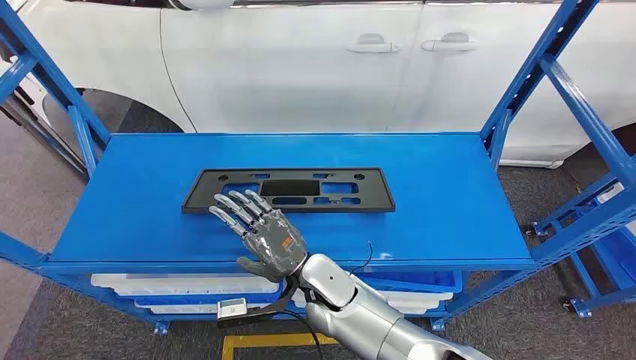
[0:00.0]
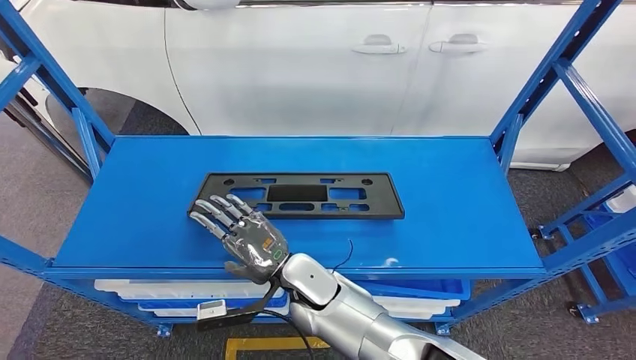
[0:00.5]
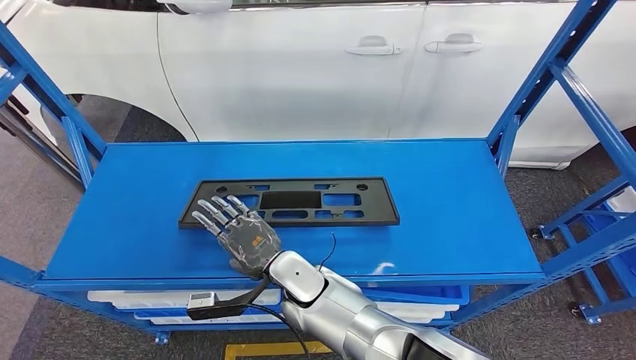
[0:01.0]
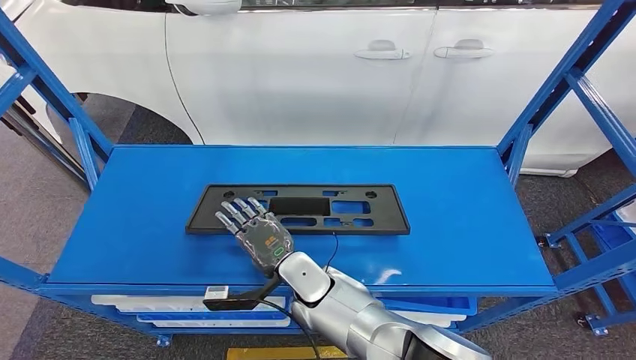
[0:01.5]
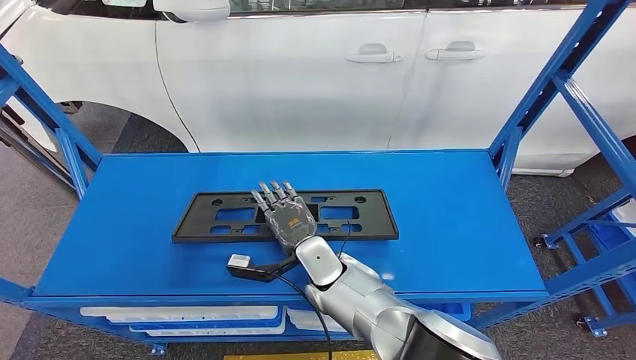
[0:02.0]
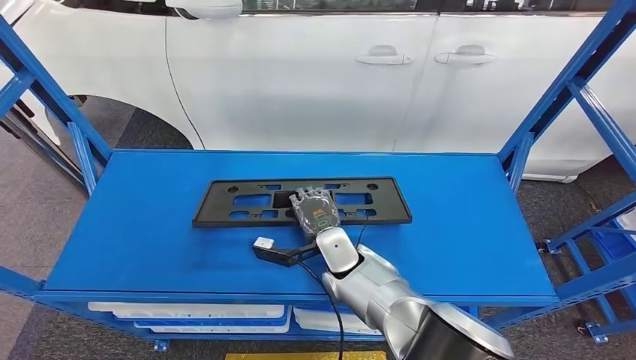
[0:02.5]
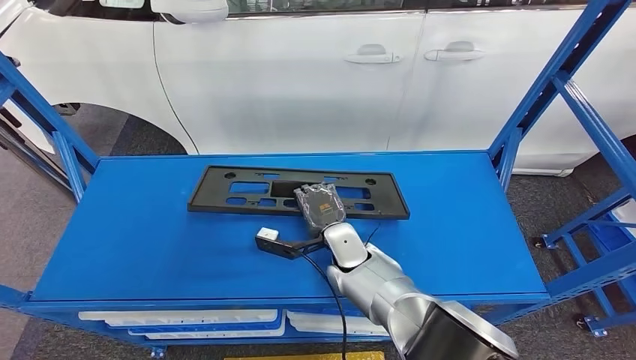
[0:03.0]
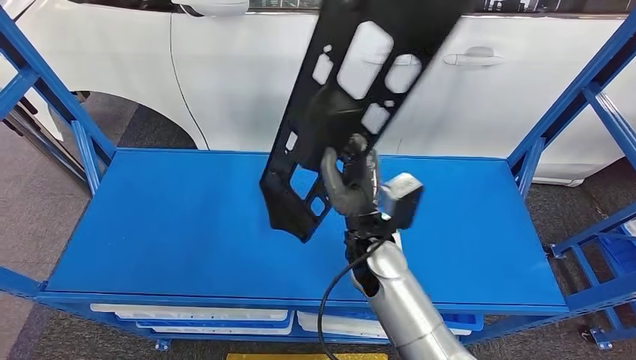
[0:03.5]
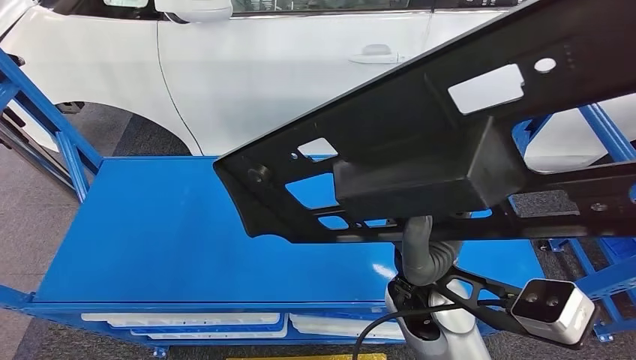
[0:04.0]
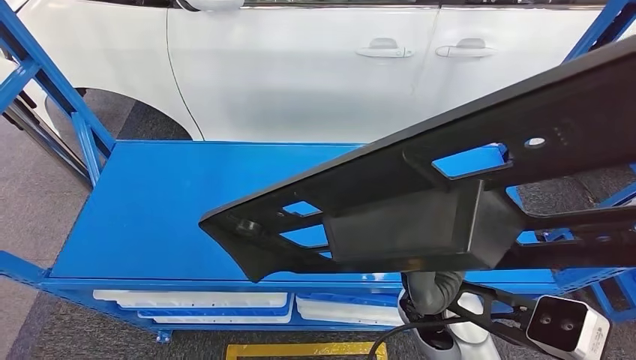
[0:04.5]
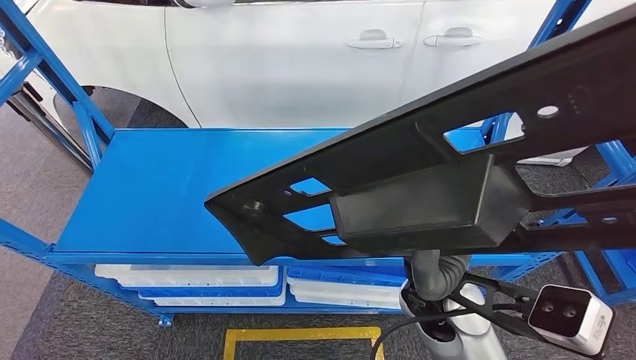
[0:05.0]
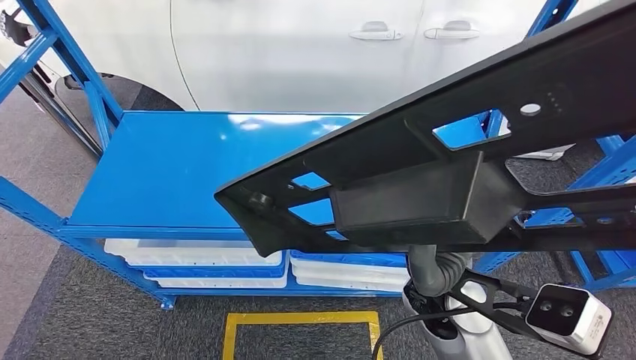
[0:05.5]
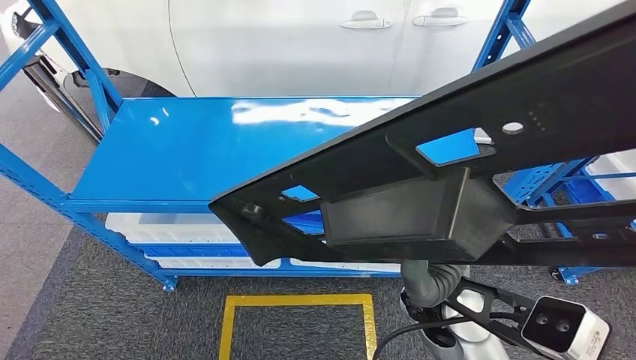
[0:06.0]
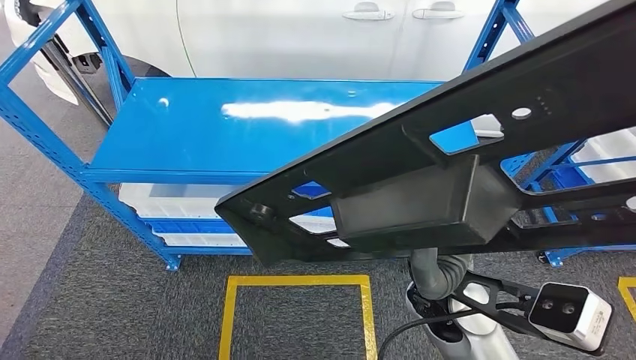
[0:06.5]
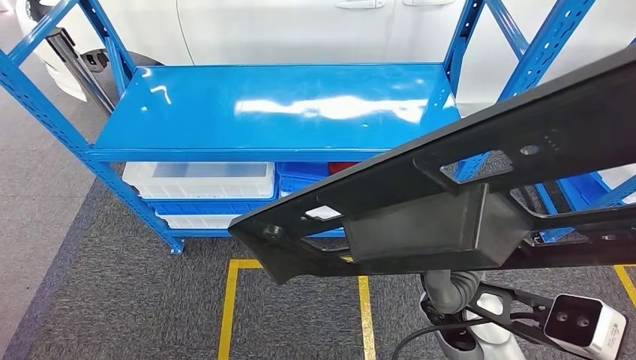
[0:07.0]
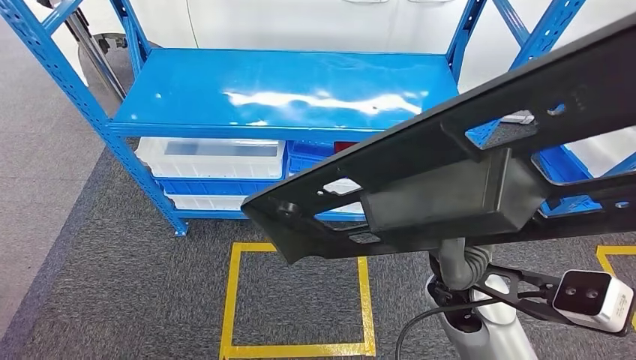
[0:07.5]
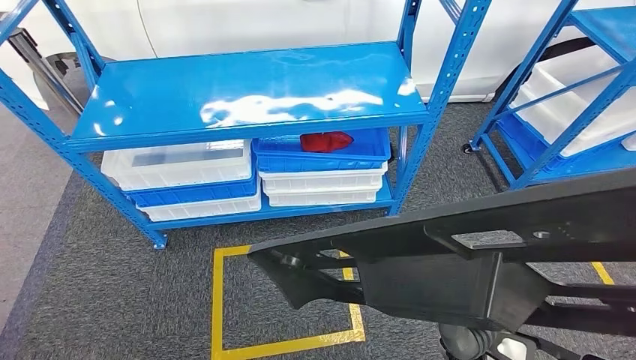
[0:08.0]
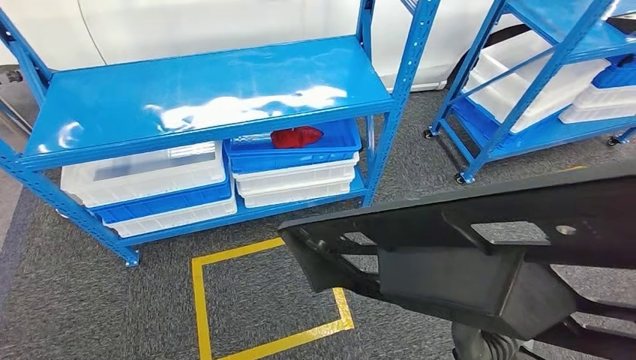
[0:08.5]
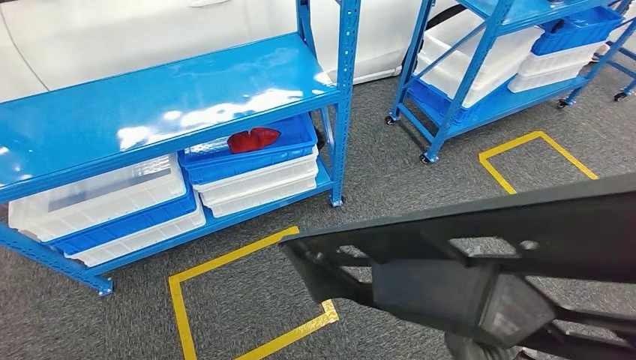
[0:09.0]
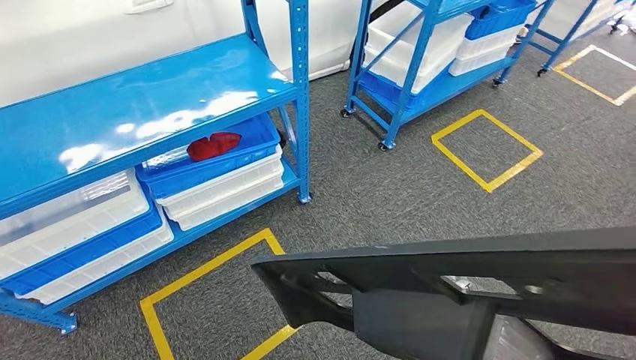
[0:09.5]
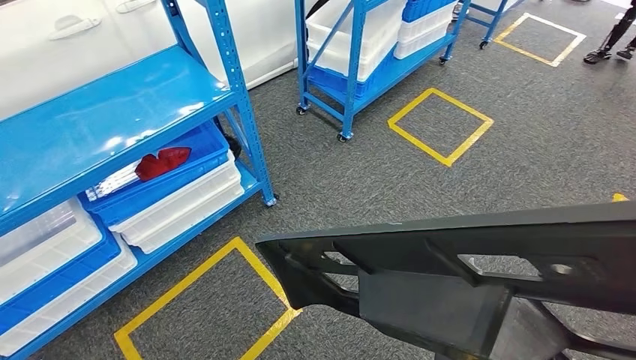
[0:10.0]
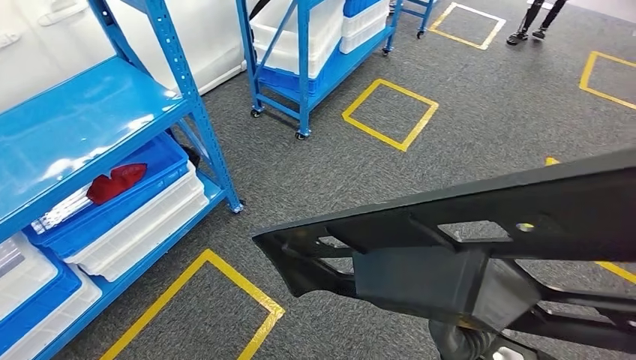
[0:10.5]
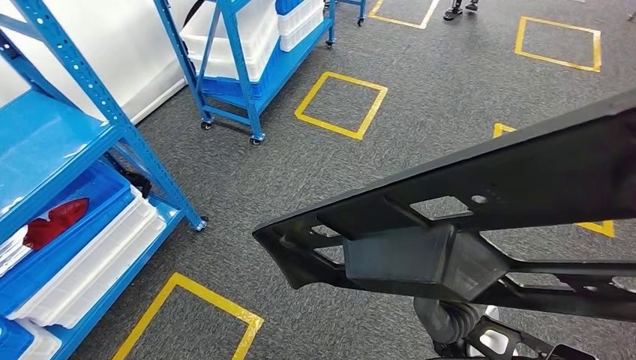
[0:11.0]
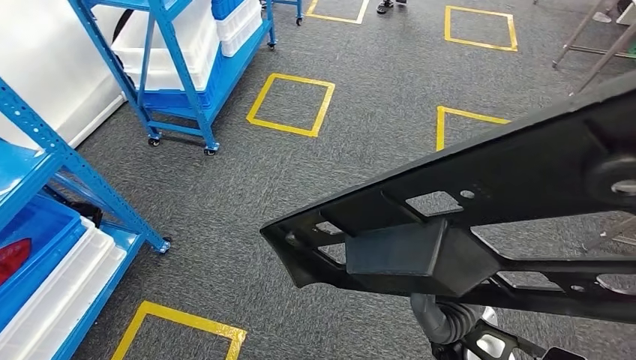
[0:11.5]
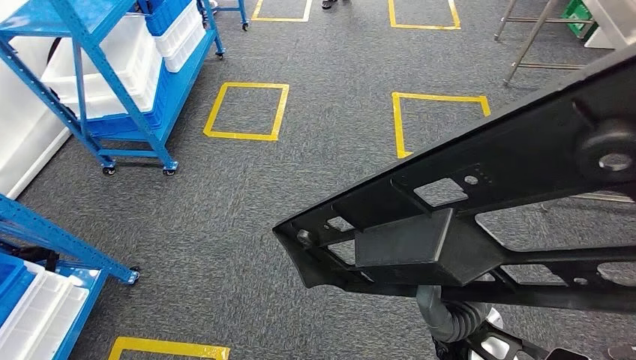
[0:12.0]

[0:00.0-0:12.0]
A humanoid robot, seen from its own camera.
Step, 0:00.0 to 0:04.0: Pick up the large material from the shelf.

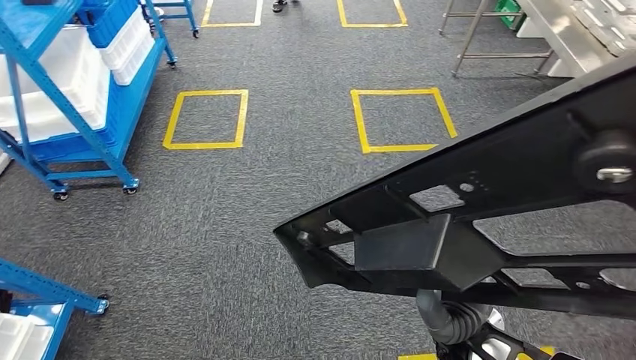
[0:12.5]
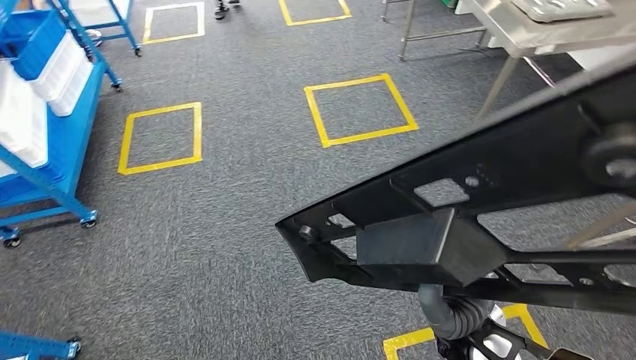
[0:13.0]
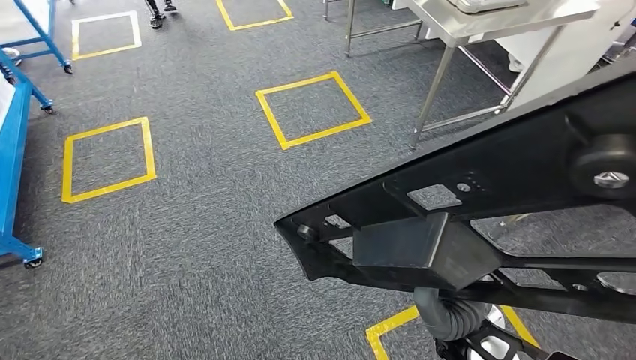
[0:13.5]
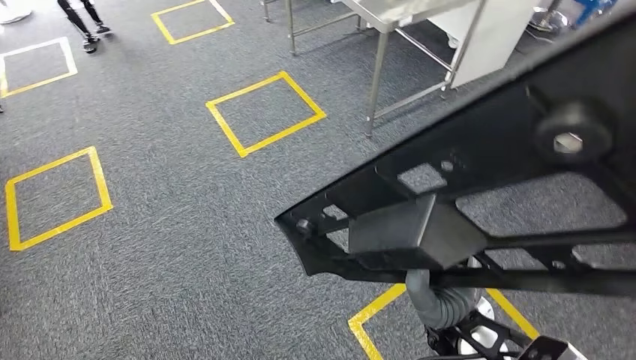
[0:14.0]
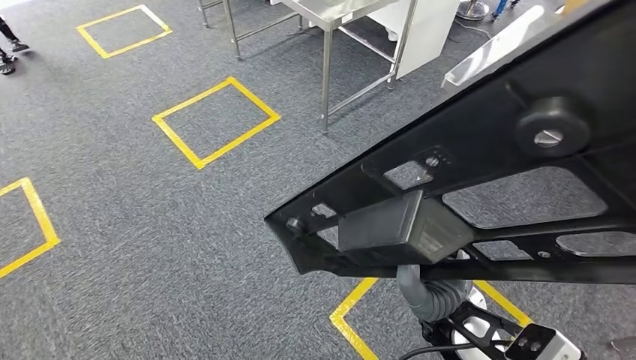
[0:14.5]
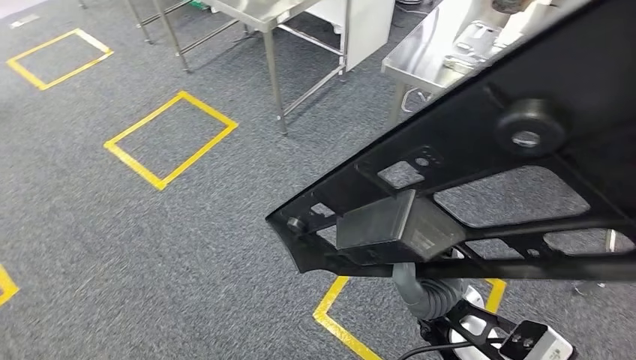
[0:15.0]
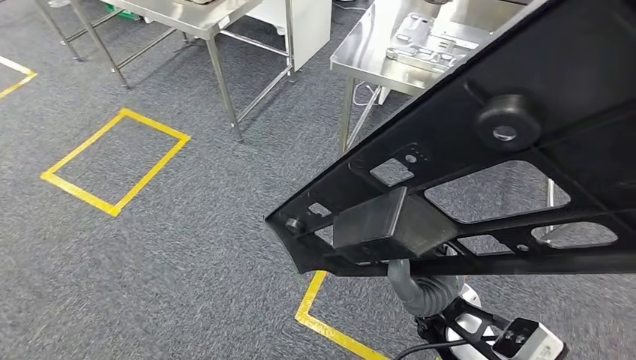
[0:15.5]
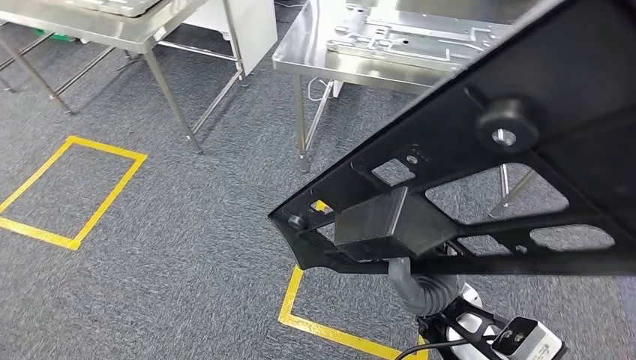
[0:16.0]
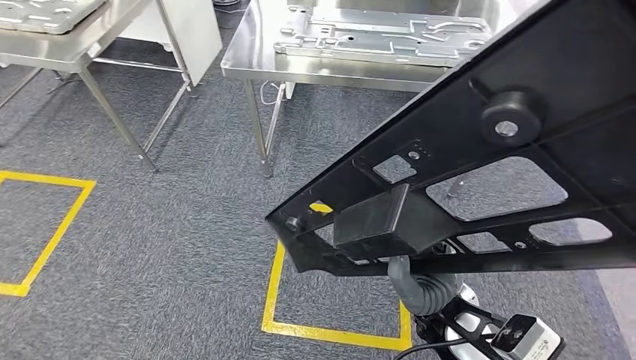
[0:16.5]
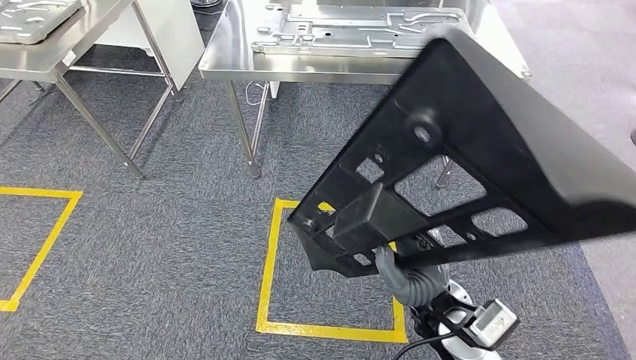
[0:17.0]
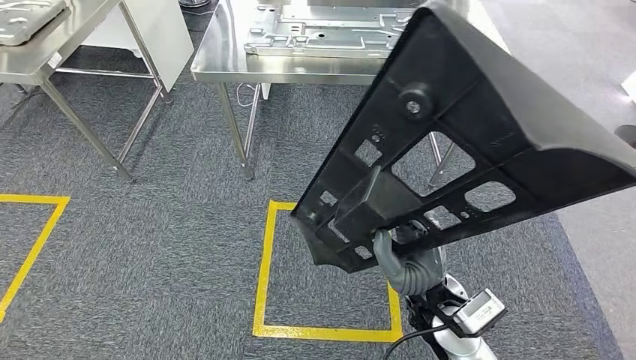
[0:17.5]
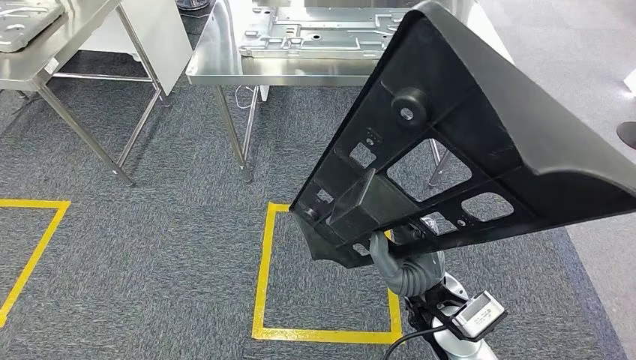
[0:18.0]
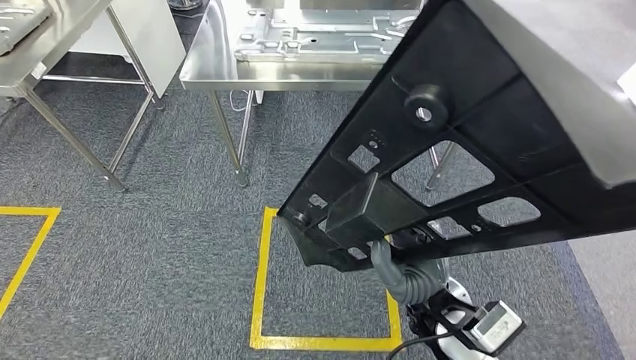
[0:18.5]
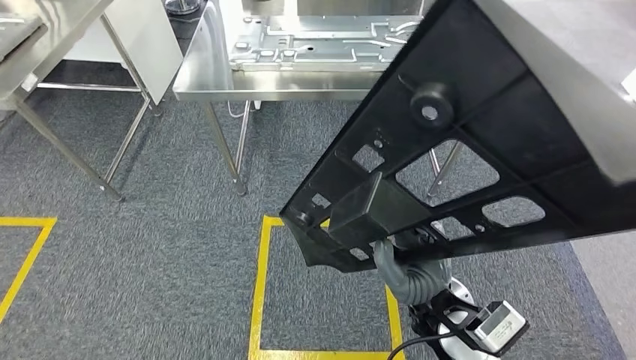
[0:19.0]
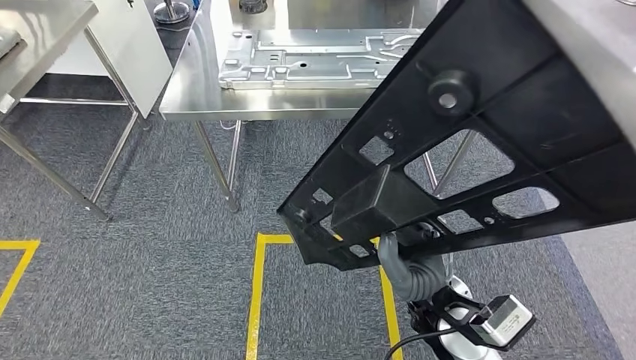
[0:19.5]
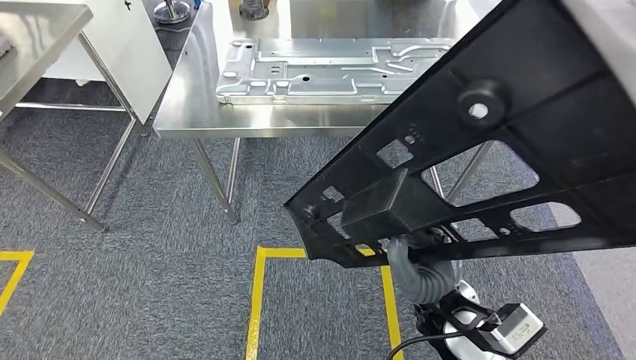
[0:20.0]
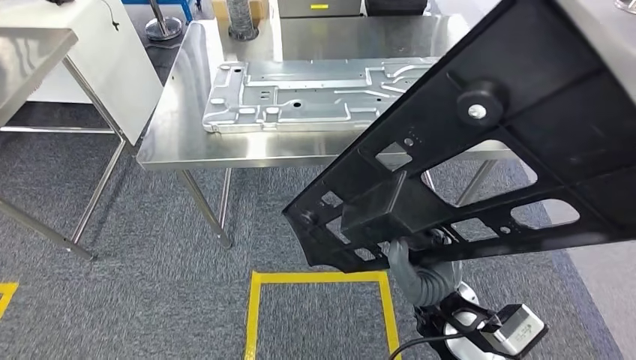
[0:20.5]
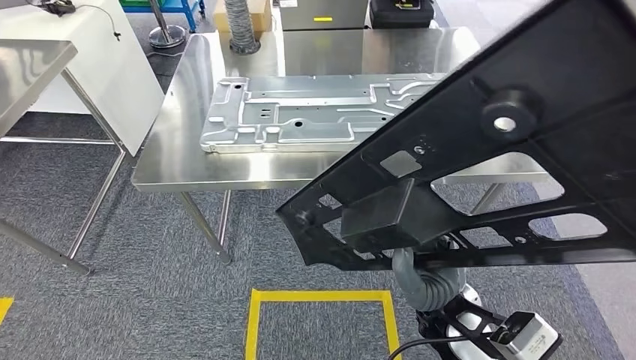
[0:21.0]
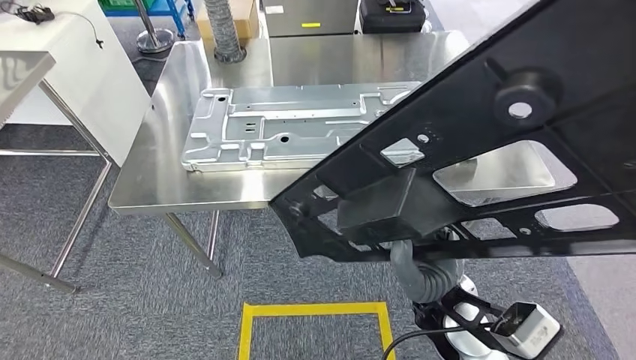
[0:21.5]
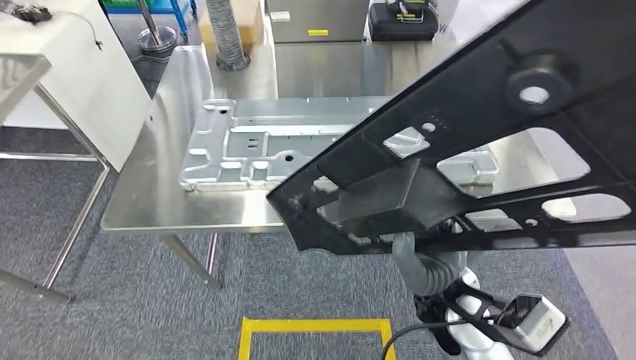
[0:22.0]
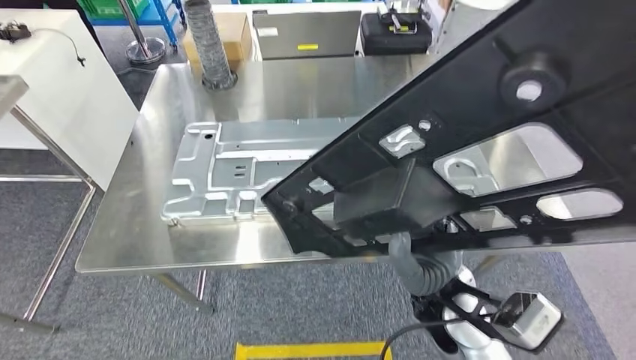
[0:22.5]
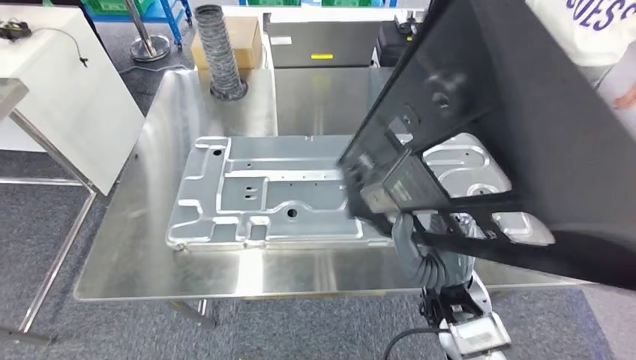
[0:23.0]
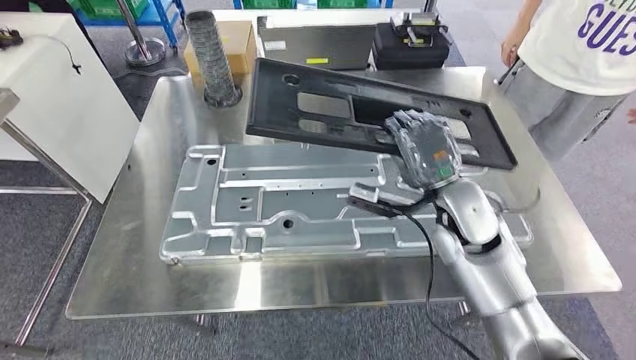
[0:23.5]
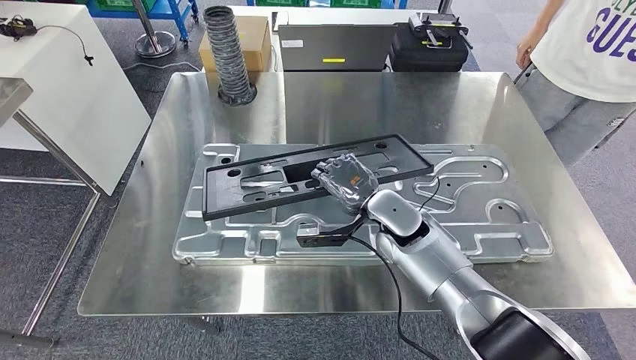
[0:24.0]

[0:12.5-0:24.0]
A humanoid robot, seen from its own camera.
Step, 0:12.5 to 0:20.5: Move the large material to the workbench.
